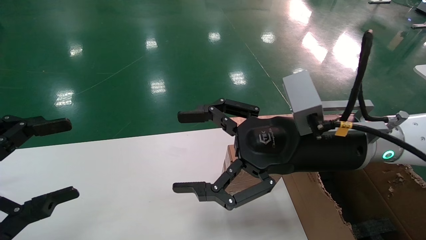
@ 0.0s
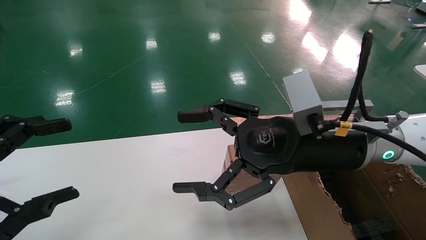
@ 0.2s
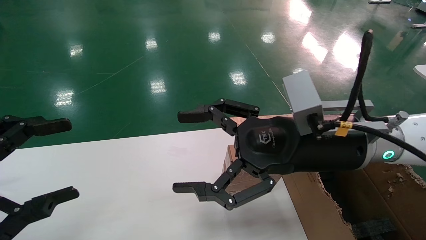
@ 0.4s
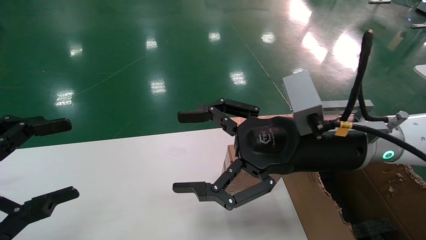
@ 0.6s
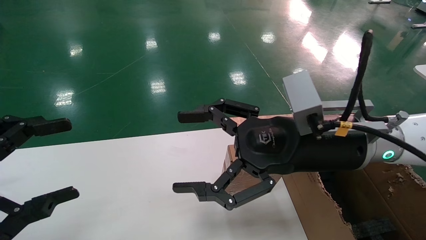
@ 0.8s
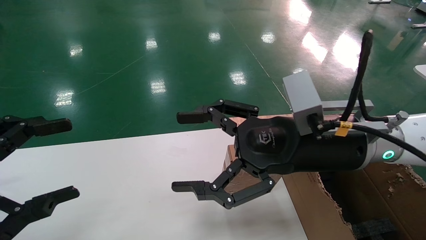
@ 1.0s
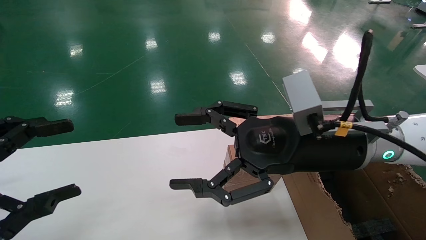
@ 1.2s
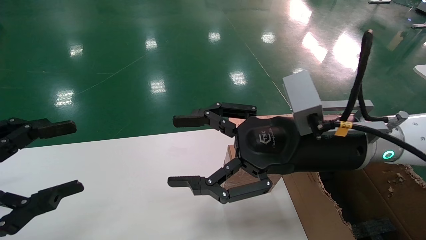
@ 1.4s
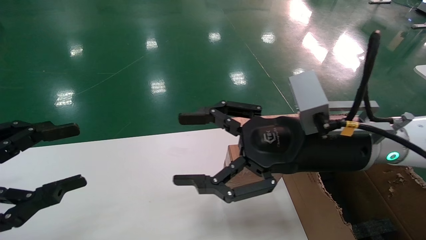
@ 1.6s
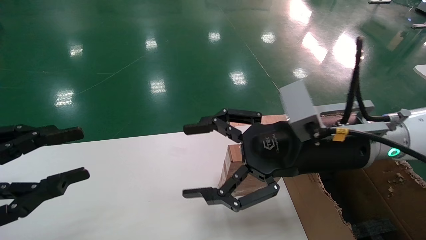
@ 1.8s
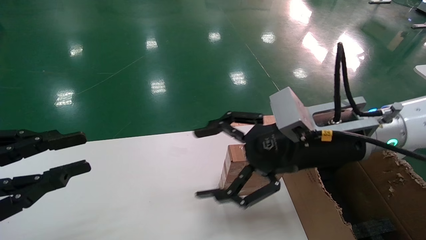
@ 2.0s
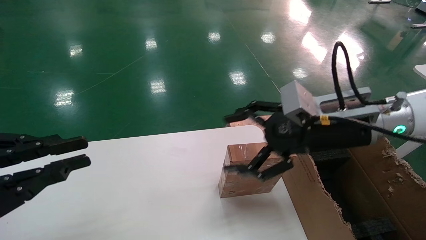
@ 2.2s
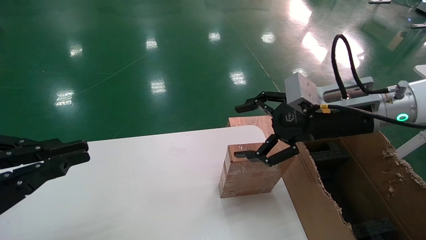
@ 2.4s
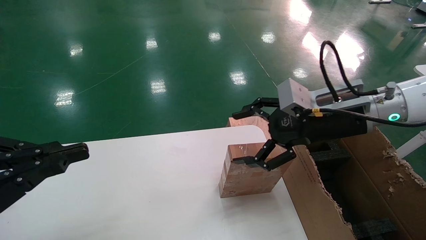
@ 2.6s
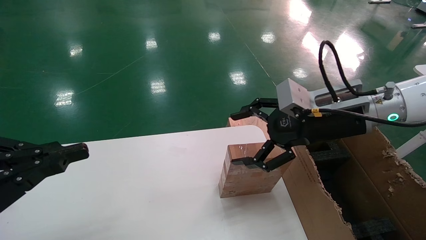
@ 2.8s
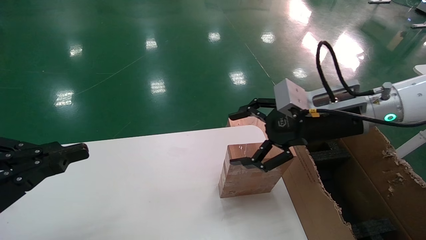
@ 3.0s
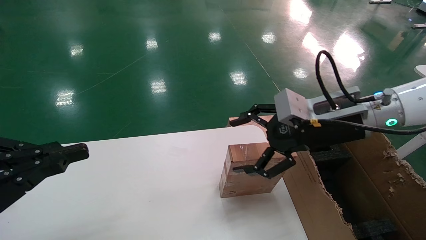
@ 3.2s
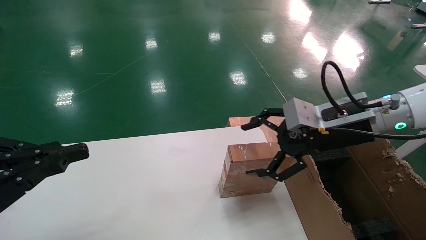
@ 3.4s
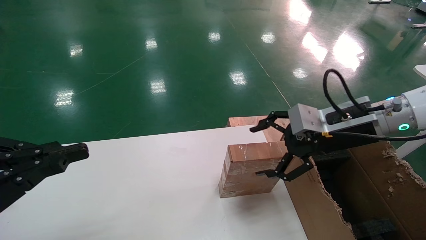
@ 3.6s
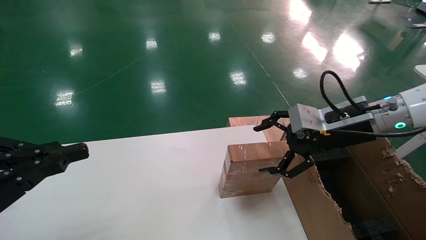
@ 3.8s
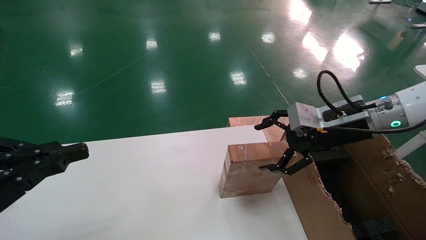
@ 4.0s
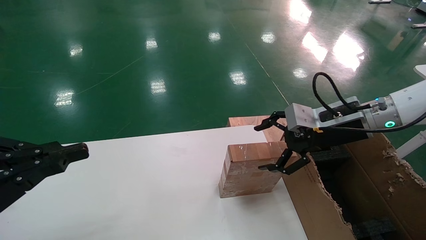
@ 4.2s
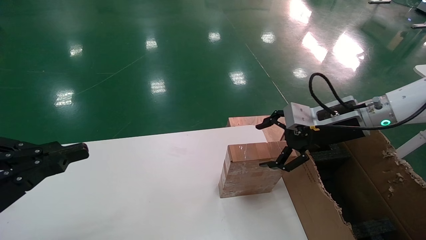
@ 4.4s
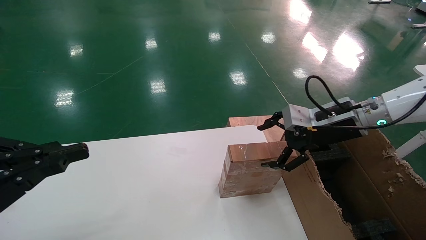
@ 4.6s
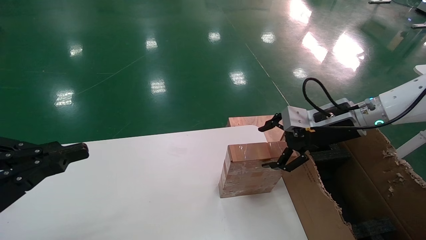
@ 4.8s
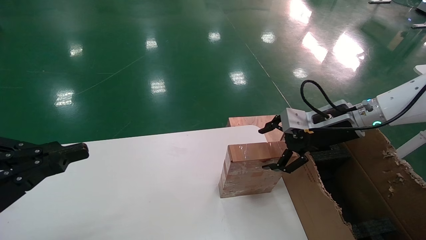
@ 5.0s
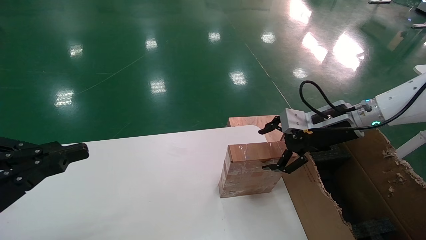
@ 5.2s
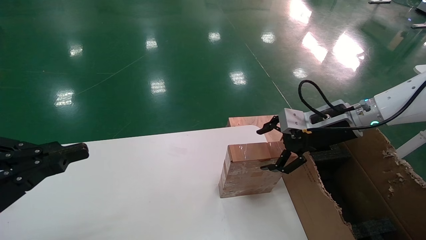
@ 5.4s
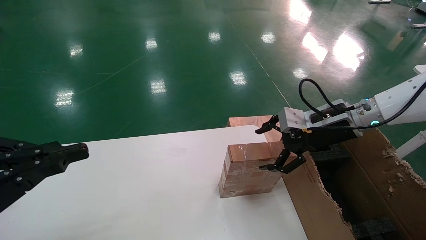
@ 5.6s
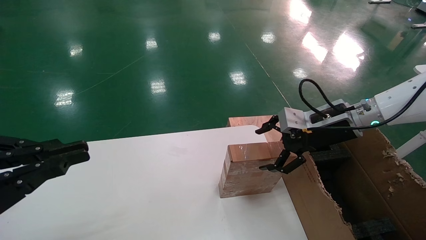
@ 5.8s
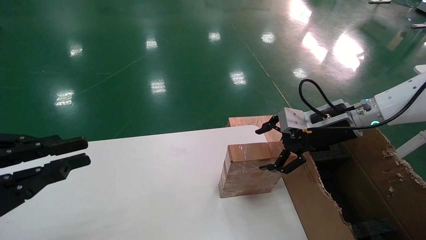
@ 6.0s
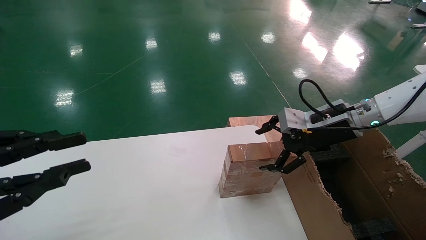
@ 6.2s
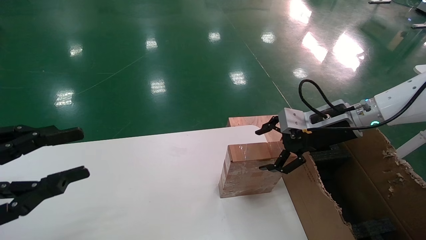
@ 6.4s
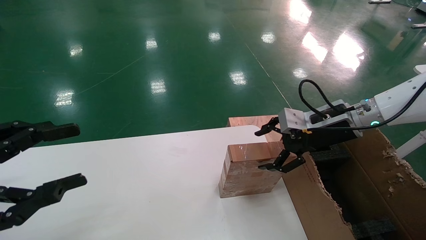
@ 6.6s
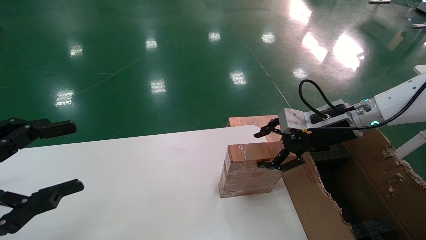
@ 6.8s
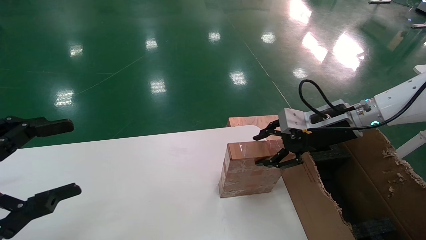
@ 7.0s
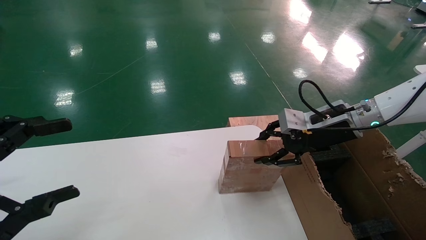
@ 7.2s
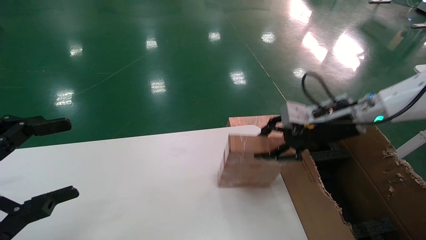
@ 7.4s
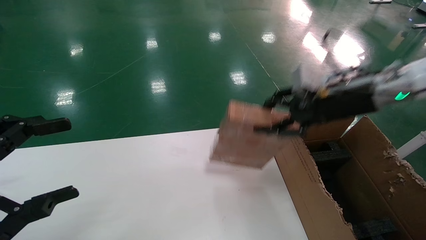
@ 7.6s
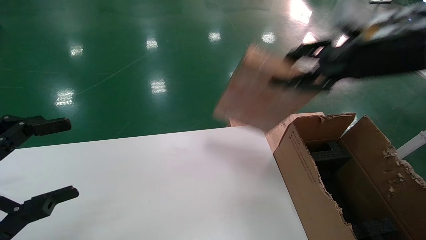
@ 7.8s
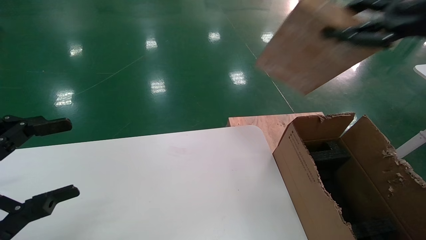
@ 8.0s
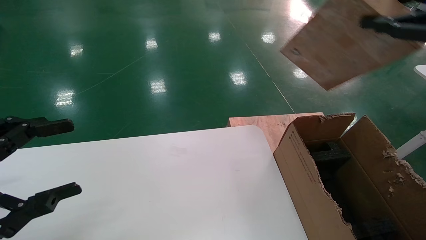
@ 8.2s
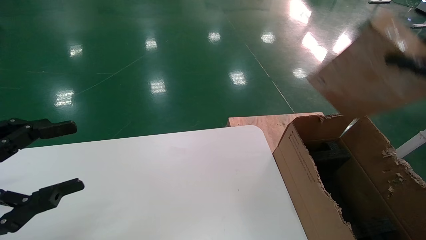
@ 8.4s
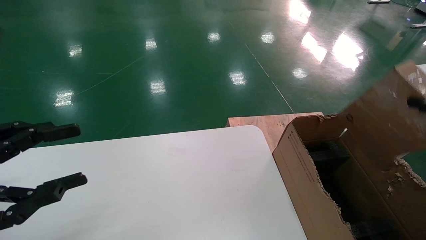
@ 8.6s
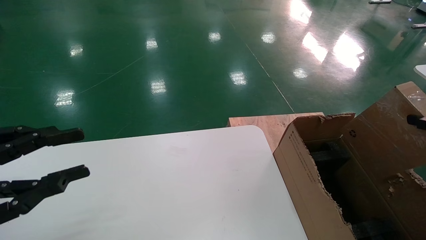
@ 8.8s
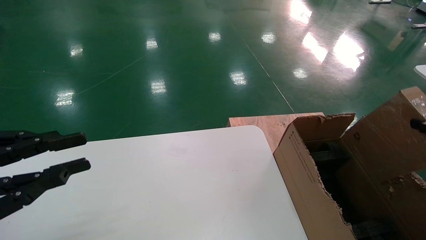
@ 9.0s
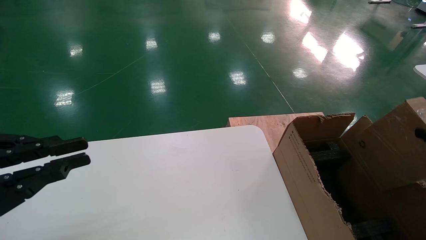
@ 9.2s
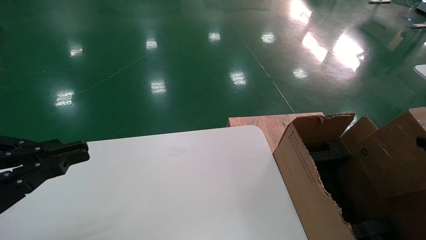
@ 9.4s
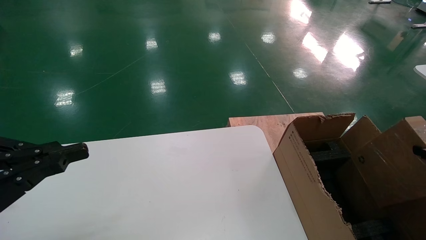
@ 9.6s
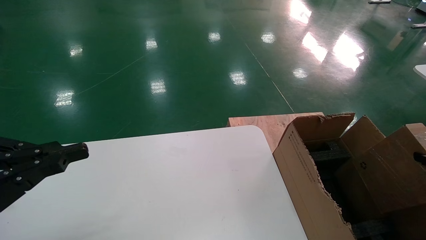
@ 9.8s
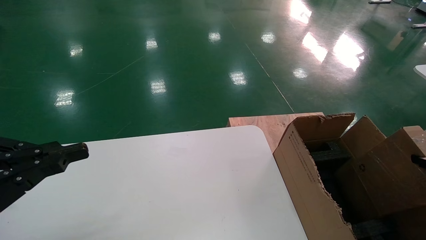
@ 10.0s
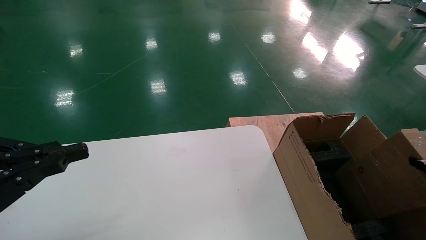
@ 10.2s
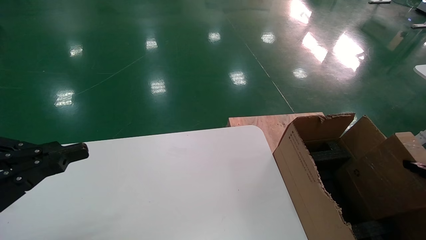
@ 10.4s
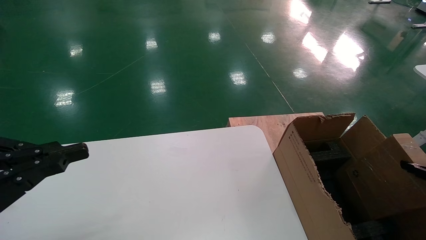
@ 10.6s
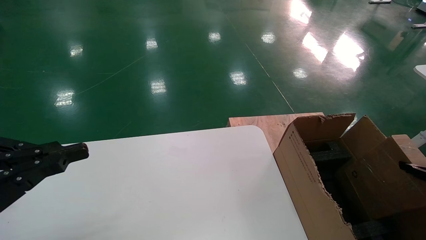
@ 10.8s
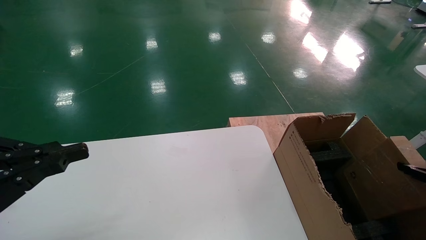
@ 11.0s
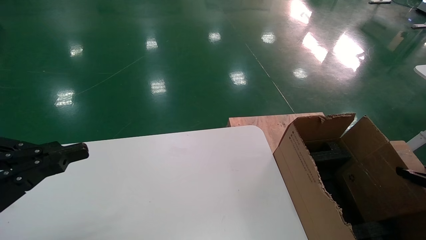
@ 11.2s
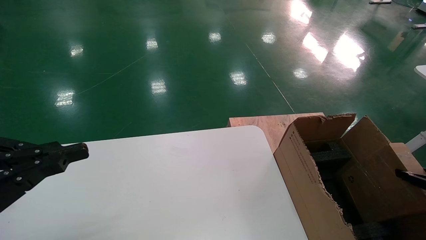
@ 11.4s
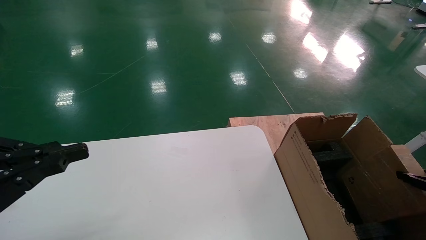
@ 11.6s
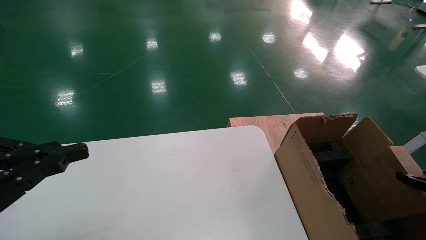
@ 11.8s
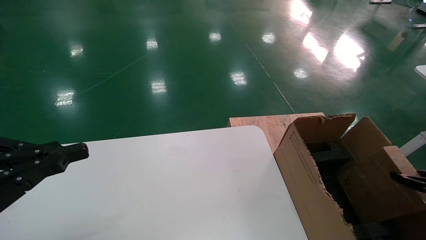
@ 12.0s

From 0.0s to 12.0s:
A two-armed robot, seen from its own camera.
Task of the whole recording: put the box on the table into the big box.
Step, from 2.0s to 7.2s: Pick up the mouse and the power cord paper box.
From 0.0s to 1.6s: Neither gripper changes place.
From 1.6s to 3.0s: The left gripper closes its fingers. The right gripper travels to the right and forward by some 10 cm.
From 3.0s to 4.4s: The right gripper heads to the right, covering roughly 5 cm.
From 4.4s to 6.0s: The grippers move only a little.
From 6.0s to 7.6s: The right gripper travels upward by roughly 10 cm, and closes up. Meanwhile the left gripper opens.
From 7.6s to 9.0s: The left gripper closes up; the right gripper moves backward and to the right, approximately 25 cm.
From 9.0s to 10.4s: The left gripper closes up. Meanwhile the right gripper moves downward, approximately 10 cm.
From 10.4s to 12.0s: The right gripper shifts by roughly 5 cm.

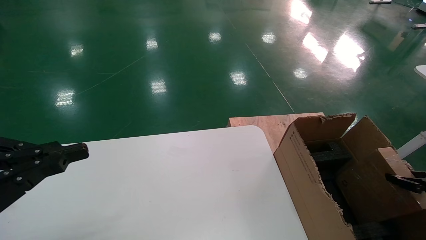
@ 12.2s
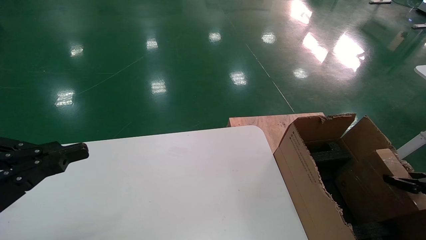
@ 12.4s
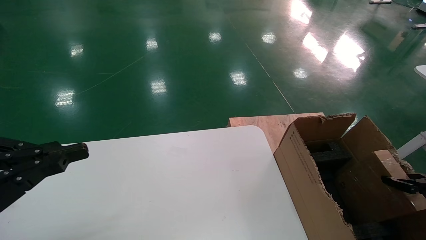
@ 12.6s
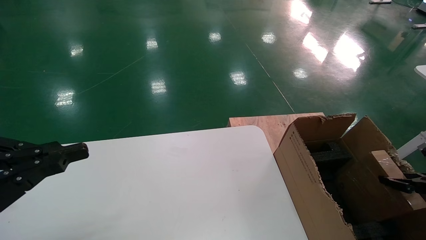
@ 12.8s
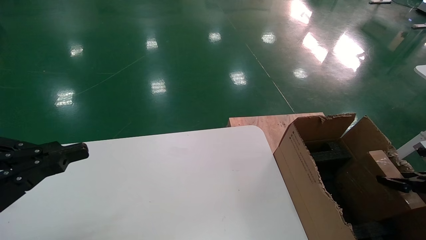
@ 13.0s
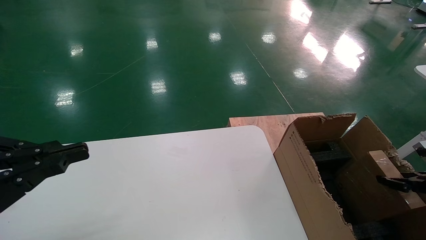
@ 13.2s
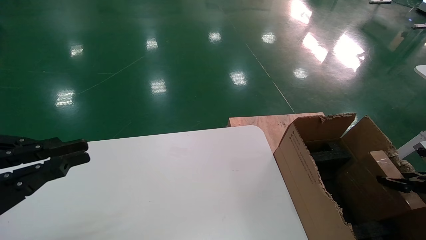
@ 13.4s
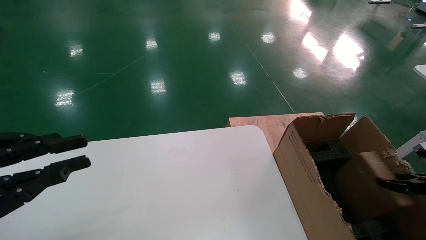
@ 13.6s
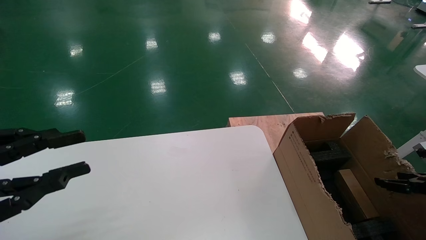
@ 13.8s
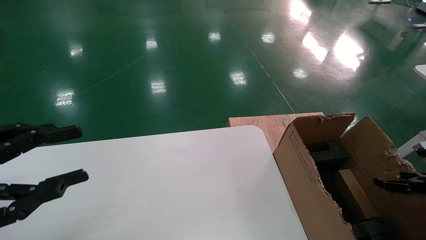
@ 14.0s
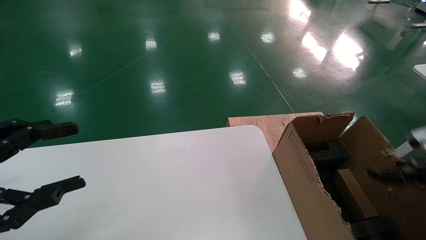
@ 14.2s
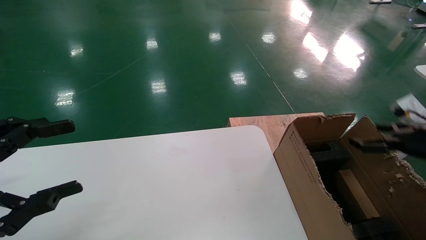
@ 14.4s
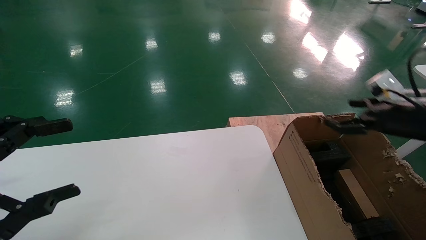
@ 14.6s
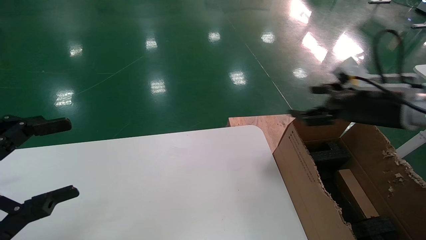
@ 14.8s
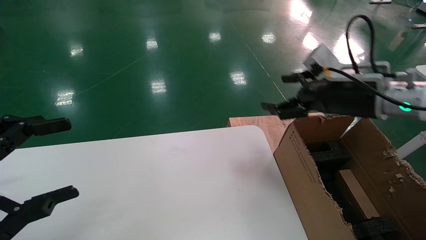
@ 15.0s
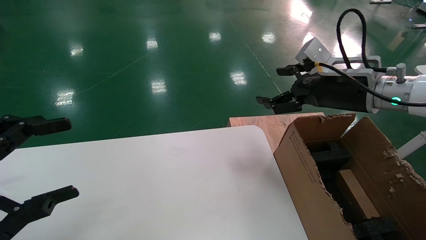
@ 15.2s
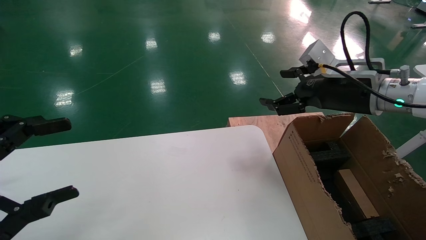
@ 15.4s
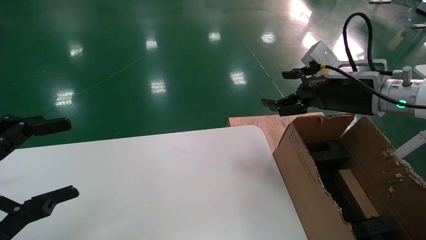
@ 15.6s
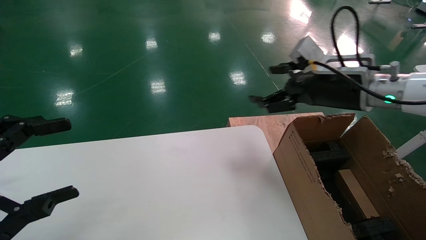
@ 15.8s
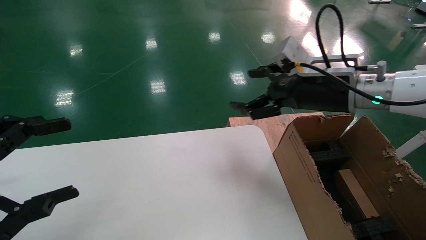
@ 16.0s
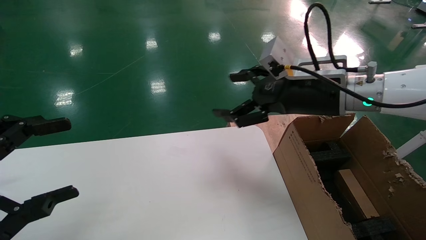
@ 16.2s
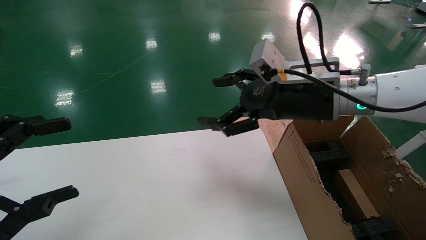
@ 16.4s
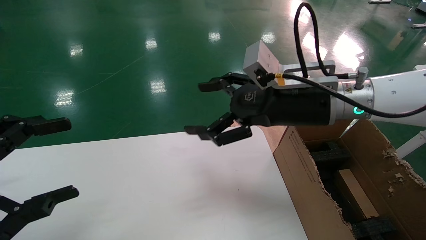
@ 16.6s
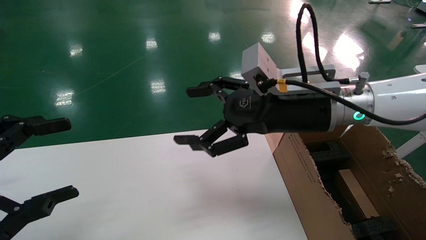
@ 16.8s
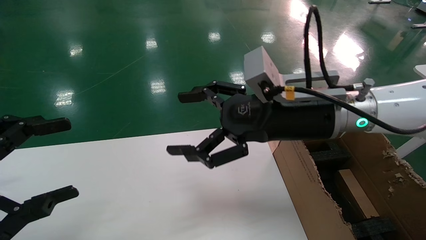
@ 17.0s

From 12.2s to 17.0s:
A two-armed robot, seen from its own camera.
Task of the whole recording: put the box on the table into the big box.
From 12.2s to 13.8s: The grippers stay close to where they were, moving slightly.
From 13.8s to 15.4s: The left gripper opens; the right gripper moves to the left, upward and forward, about 30 cm, and opens its fingers.
From 15.4s to 17.0s: The right gripper shifts approximately 15 cm to the left.
